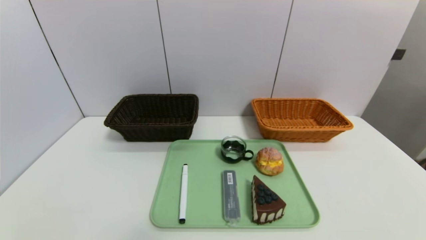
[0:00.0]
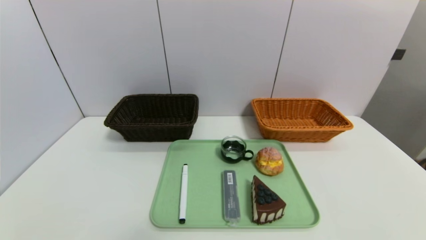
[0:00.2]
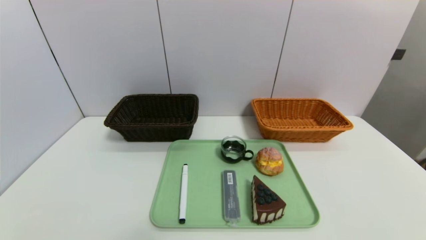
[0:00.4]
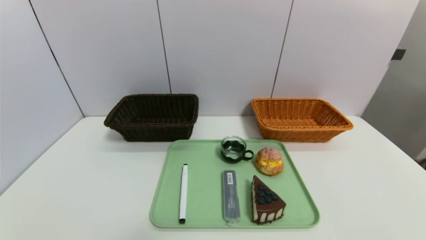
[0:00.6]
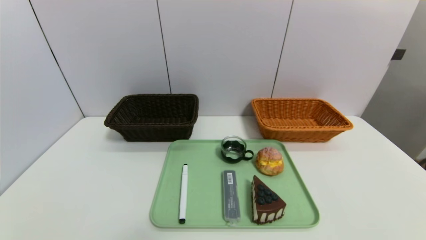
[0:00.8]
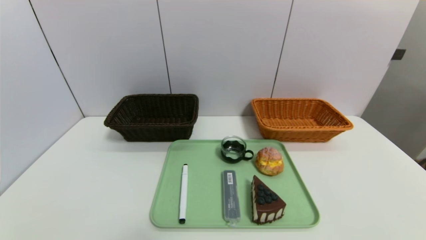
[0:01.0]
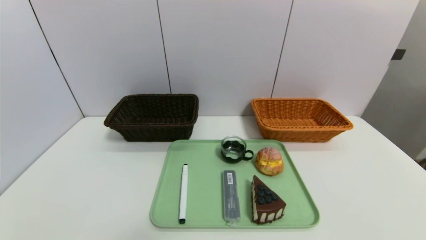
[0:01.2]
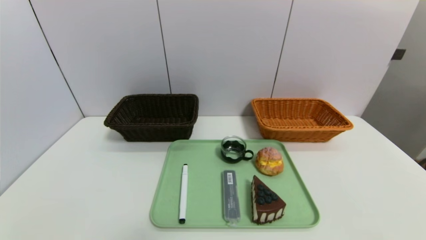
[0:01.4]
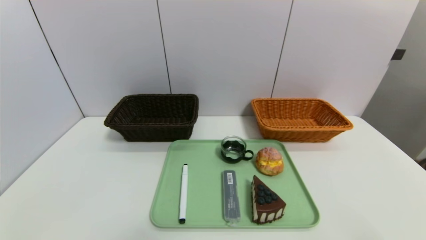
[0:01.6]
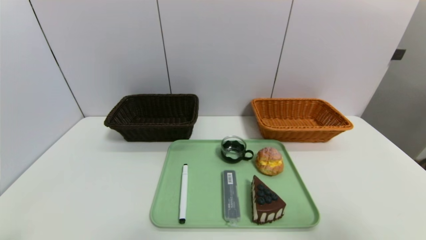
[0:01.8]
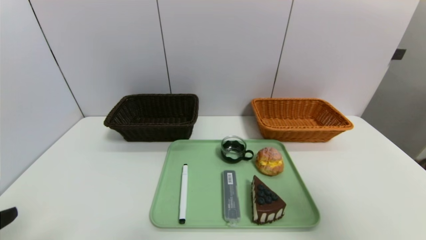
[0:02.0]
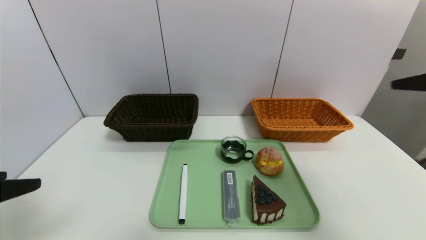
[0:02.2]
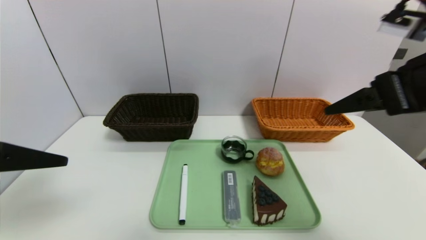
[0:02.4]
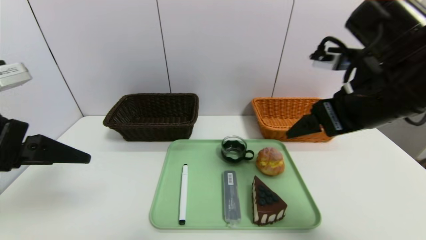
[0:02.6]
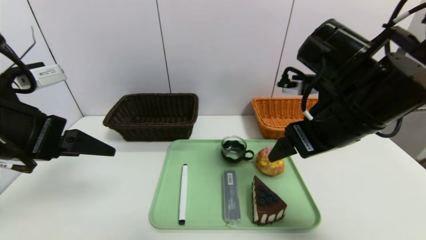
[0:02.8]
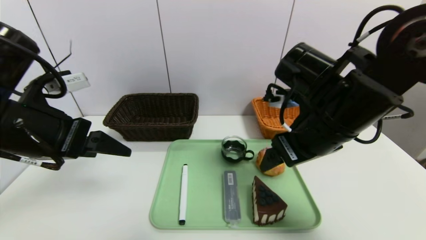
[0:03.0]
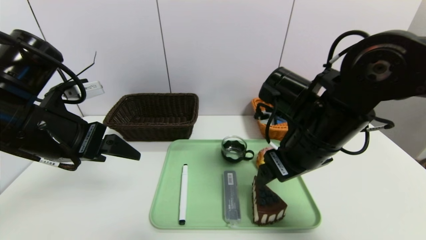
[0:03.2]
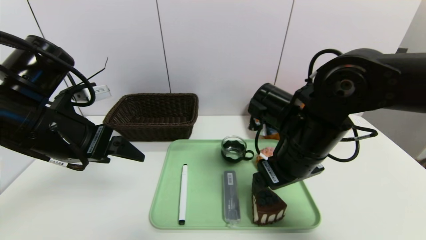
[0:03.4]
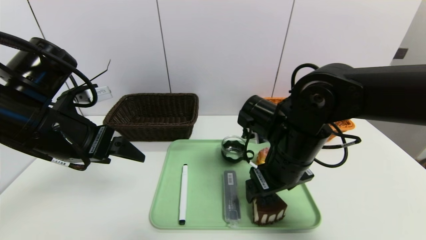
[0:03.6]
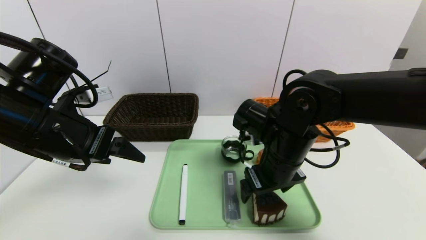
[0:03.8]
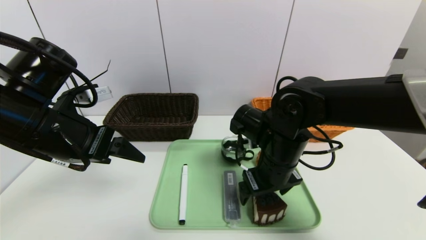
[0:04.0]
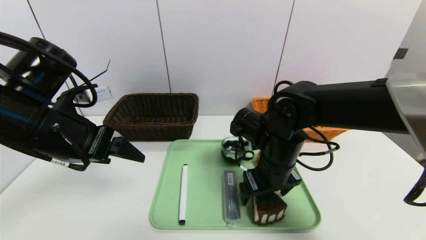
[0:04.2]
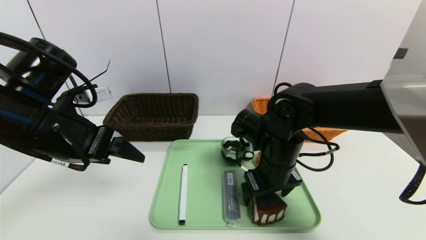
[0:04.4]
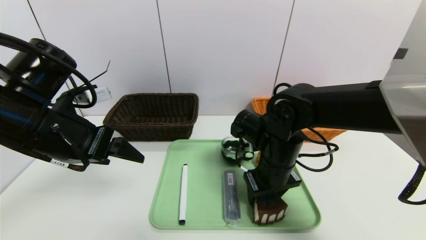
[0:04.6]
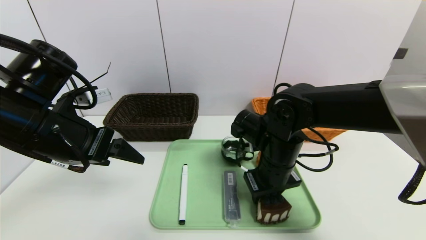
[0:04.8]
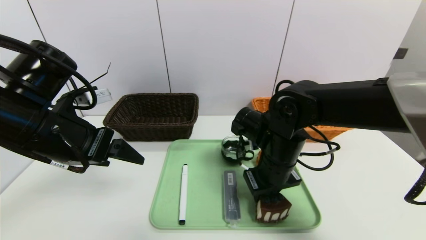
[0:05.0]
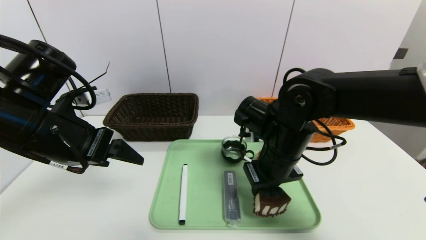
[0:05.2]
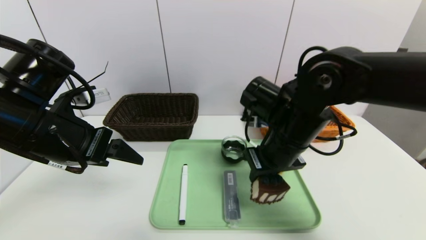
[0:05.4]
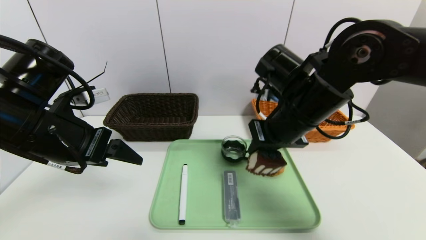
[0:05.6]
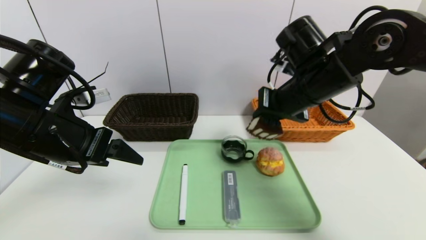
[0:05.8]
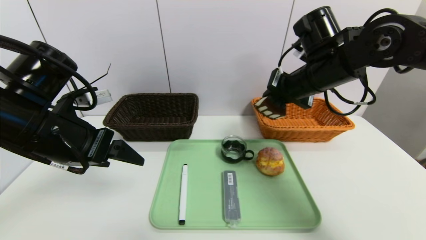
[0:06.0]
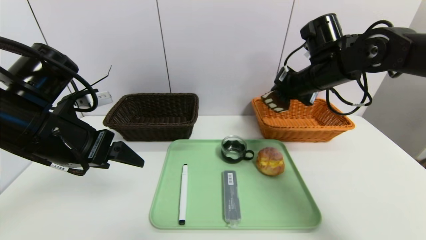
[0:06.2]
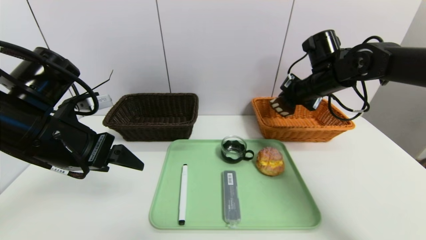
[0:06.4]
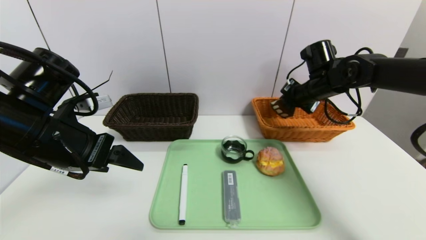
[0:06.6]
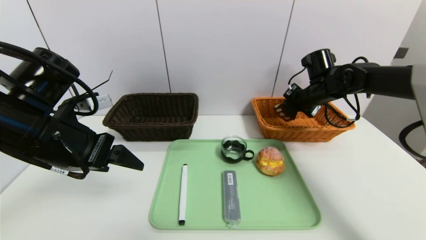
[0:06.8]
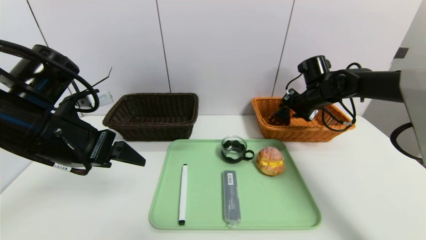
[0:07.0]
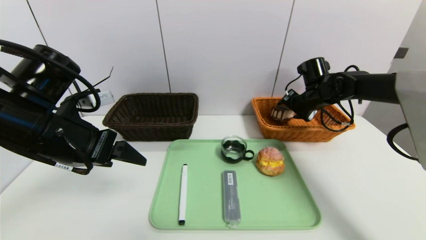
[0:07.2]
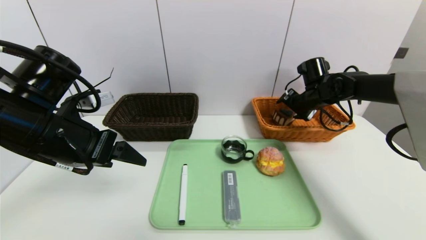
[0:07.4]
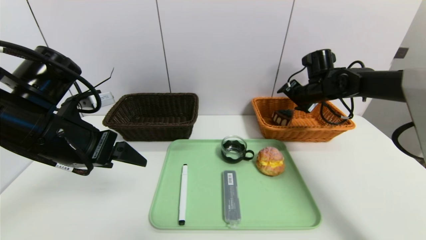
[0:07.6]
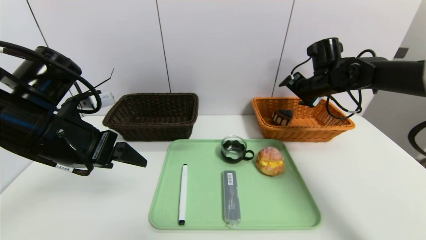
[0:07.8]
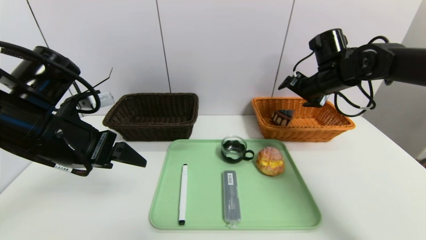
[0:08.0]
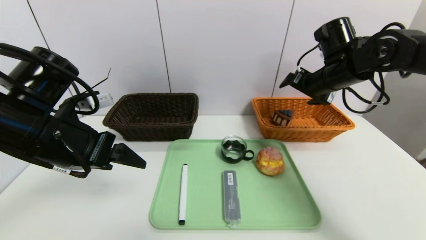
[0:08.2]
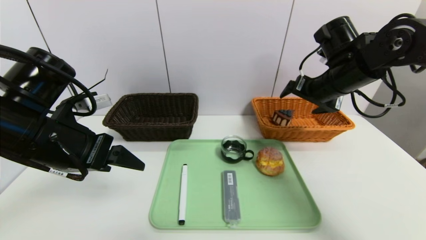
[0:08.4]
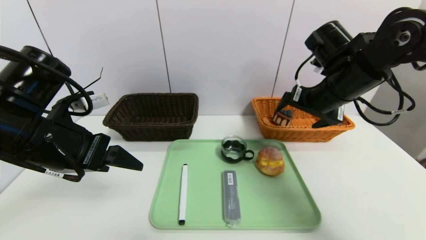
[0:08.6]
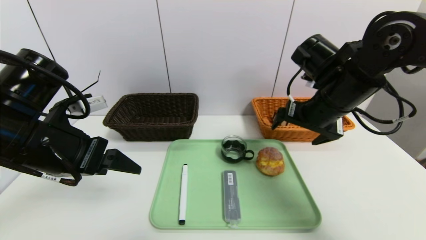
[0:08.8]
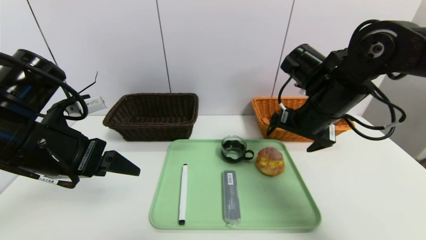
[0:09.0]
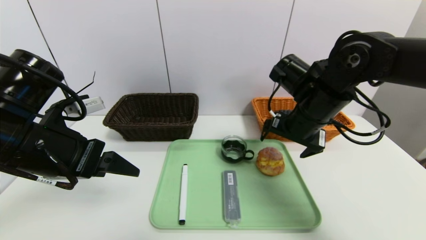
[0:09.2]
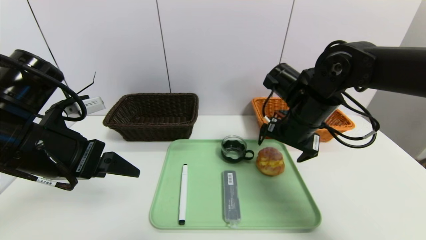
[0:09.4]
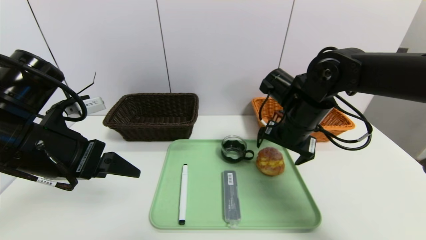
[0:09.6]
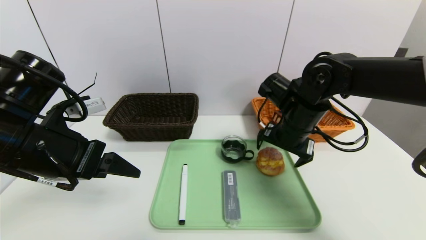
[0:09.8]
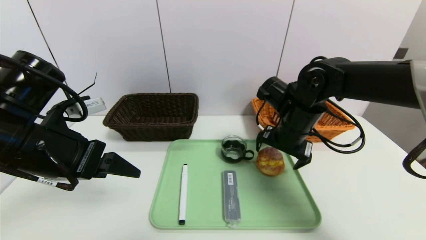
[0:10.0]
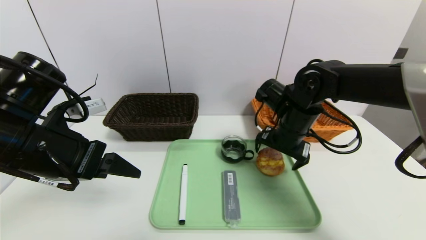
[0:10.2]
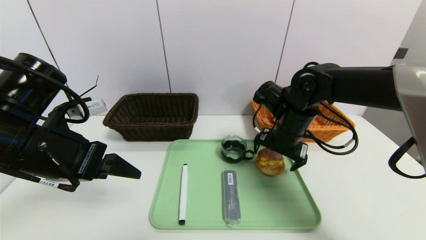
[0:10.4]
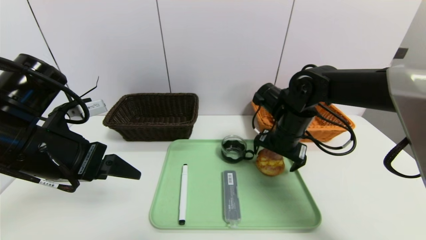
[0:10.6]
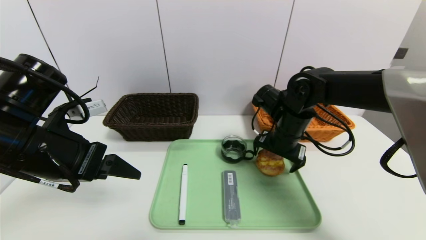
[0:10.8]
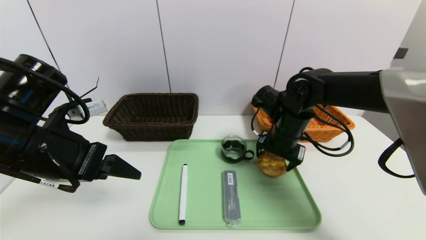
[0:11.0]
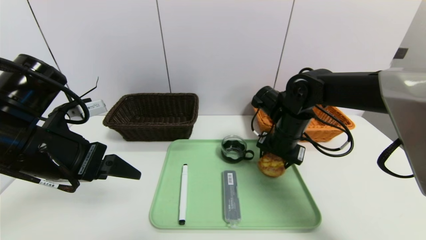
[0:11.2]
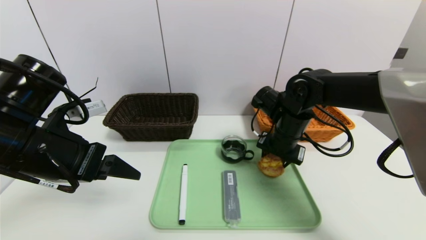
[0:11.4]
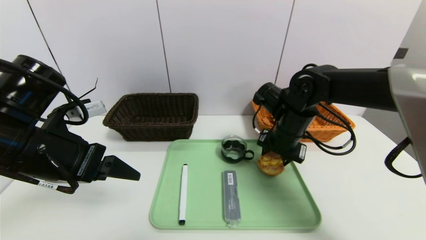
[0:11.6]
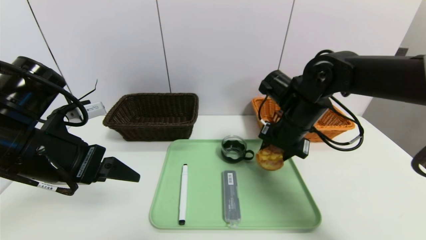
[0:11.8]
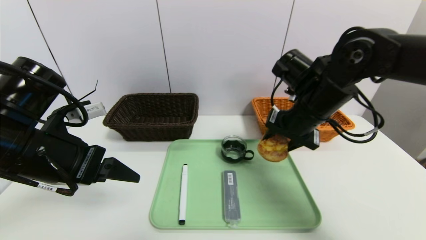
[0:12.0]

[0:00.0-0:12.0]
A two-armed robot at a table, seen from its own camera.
Task of the whole recording: place the food in the right basket with the right gripper, and place the non food items in the left basket with the left gripper.
Step, 0:00.0 to 0:07.4: Grasp the triangle cake and put it in the right basket.
0:01.6 to 0:03.0: The left gripper shifts roughly 25 cm forward and upward; the right gripper moves forward and to the left, approximately 30 cm.
0:03.0 to 0:04.4: The right gripper travels downward by about 10 cm.
0:04.4 to 0:06.0: The right gripper heads upward, to the right and forward, covering approximately 15 cm, and closes its fingers.
0:06.0 to 0:07.6: The right gripper goes about 15 cm forward, to the right and downward, and opens up.
0:07.6 to 0:09.0: The right gripper shifts about 20 cm backward and to the left.
0:09.0 to 0:10.4: The right gripper heads downward, covering roughly 5 cm.
0:10.4 to 0:12.0: The right gripper shifts approximately 5 cm upward, and closes up.

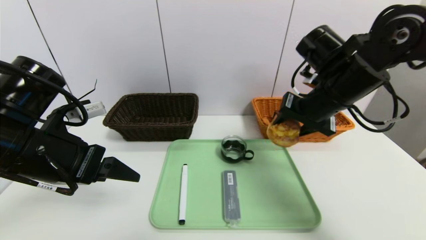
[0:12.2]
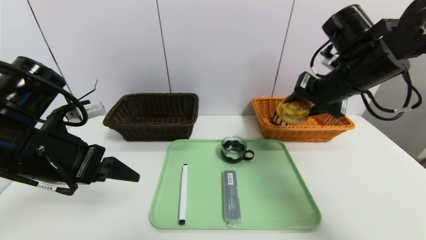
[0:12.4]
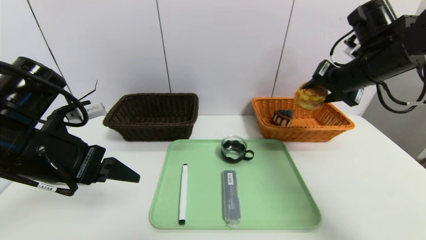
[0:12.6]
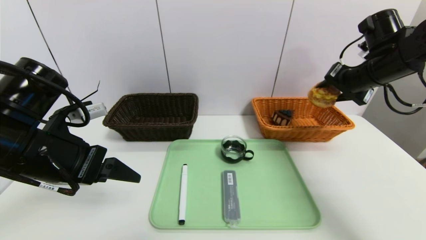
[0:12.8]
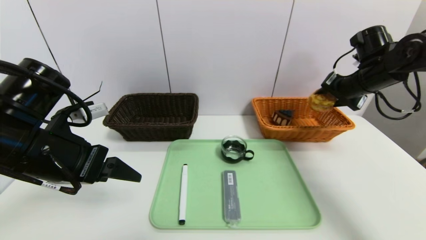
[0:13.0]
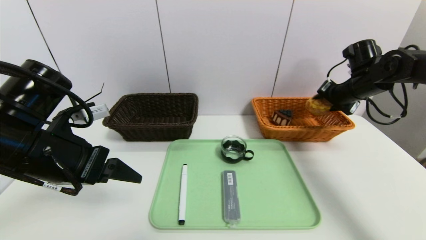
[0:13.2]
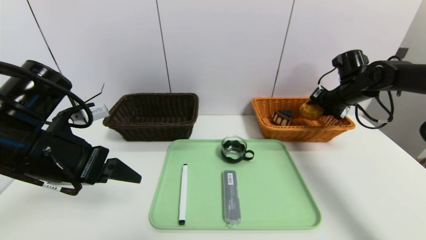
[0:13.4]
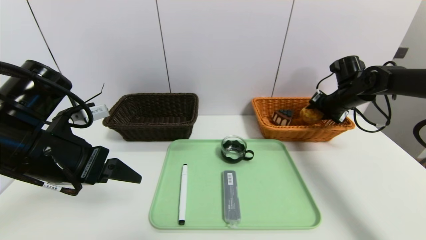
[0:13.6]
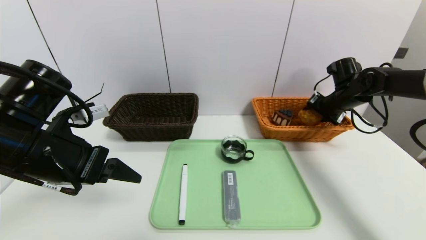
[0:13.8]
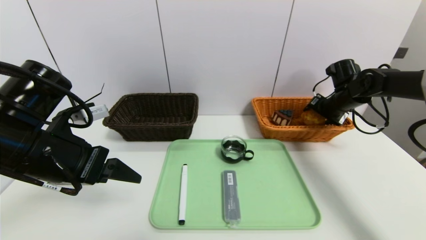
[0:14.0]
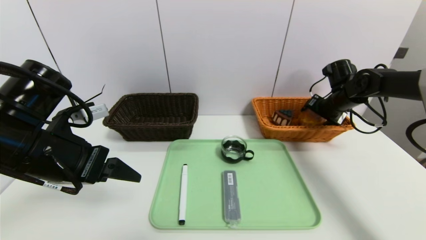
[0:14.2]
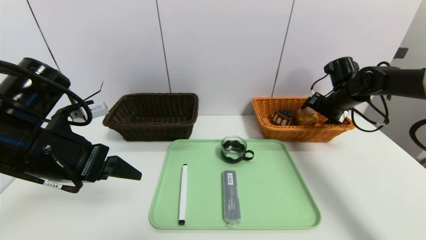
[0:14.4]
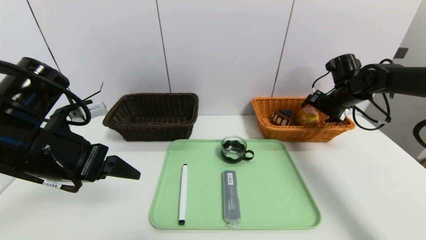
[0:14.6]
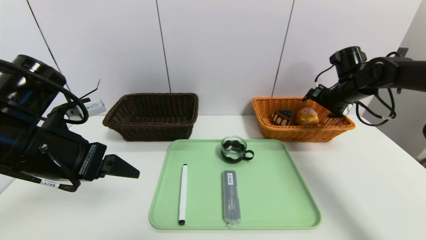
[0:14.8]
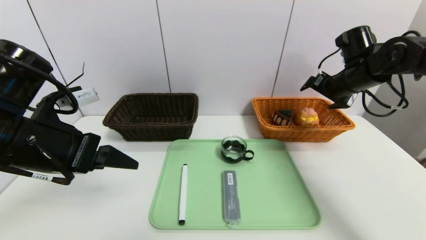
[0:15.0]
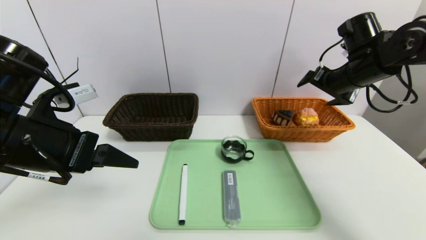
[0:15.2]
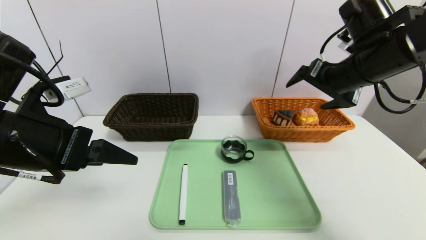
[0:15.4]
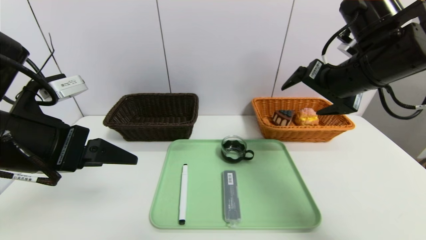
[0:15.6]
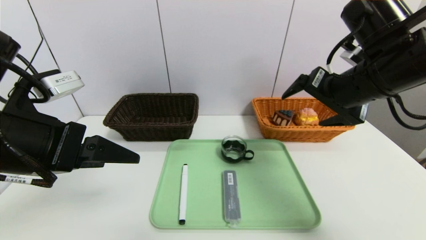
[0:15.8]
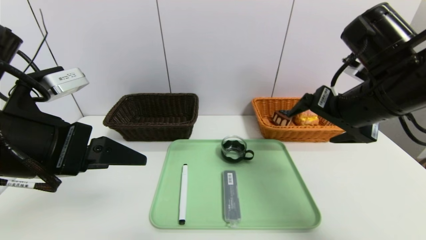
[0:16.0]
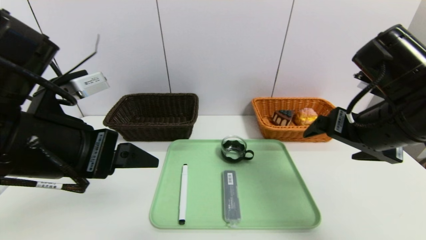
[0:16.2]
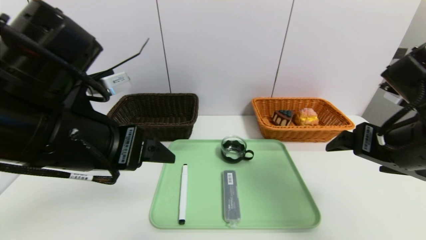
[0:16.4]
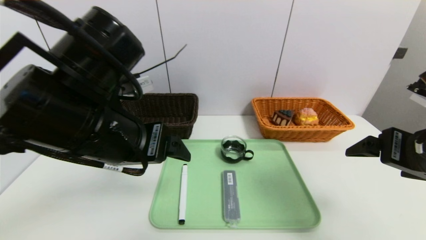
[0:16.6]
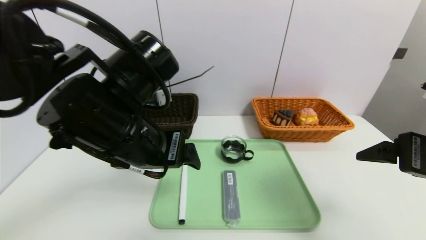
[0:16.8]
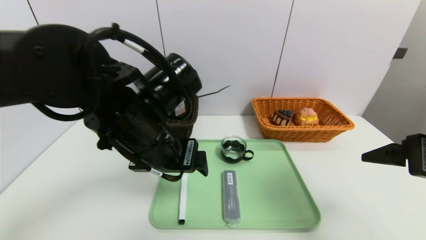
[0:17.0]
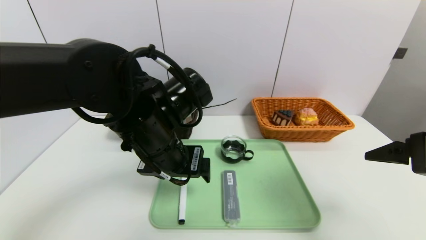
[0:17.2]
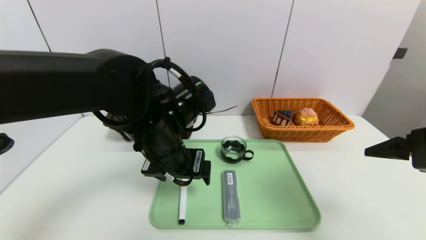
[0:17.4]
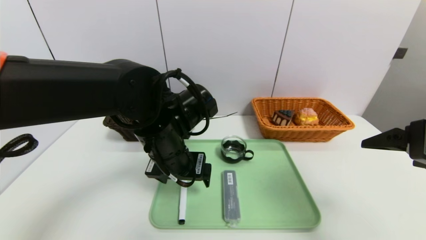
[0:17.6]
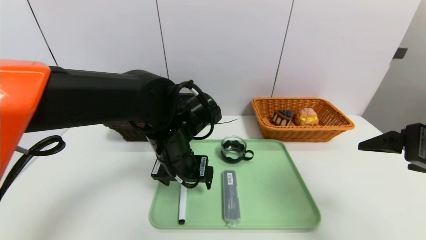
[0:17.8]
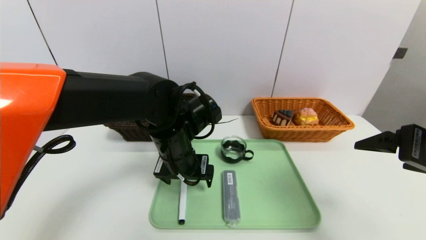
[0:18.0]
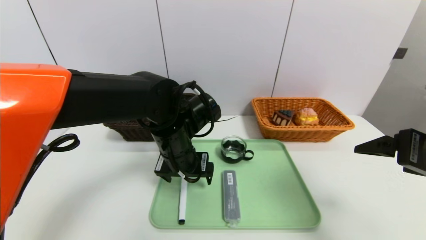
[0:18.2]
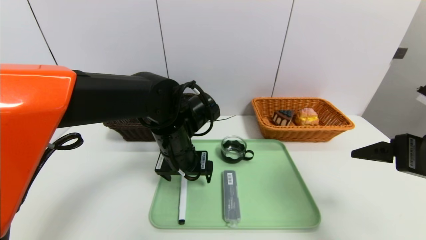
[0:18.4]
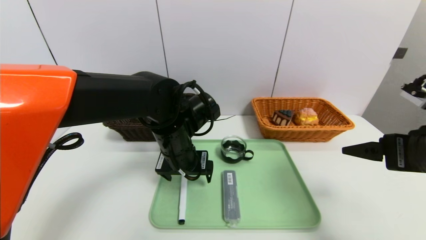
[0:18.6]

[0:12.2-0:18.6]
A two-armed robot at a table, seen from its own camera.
Task of the whole recording: place the food in the right basket with the right gripper, and place the non food items in the left basket with the left gripper.
Step, 0:12.2 to 0:14.8: Grasp the egg yolk pastry and put it in the right basket.
0:12.2 to 0:13.8: The right gripper goes some 25 cm to the right, forward and downward.
0:13.8 to 0:15.4: The right gripper travels backward, upward and to the left by roughly 20 cm, and opens.
0:15.4 to 0:17.0: The left gripper heads to the right, covering some 15 cm, while the right gripper goes approximately 15 cm backward.
0:17.0 to 0:18.6: The left gripper is displaced downward and forward by approximately 10 cm.
